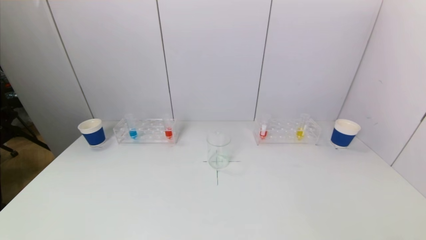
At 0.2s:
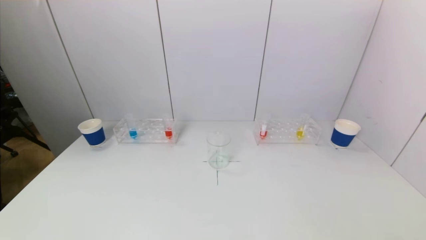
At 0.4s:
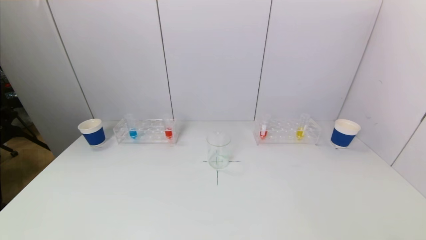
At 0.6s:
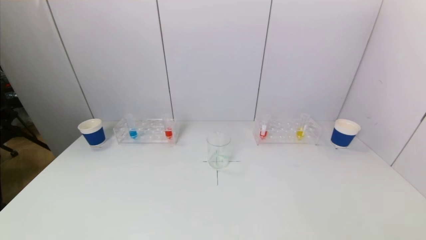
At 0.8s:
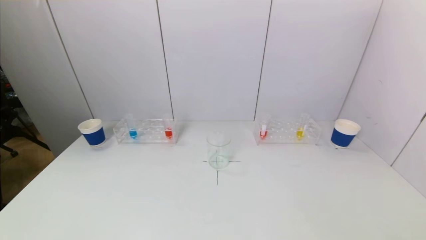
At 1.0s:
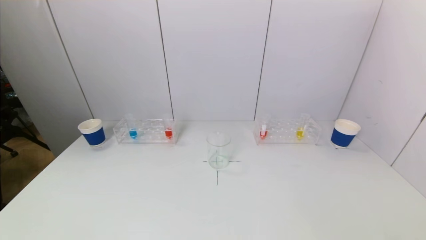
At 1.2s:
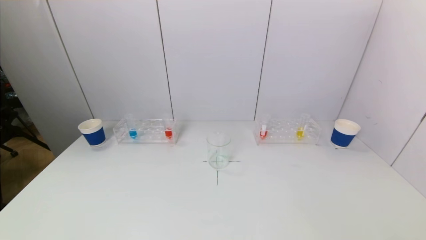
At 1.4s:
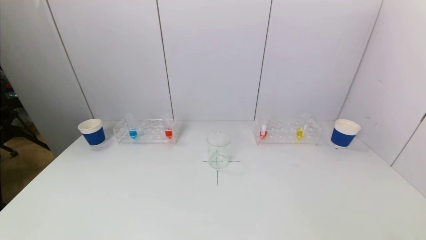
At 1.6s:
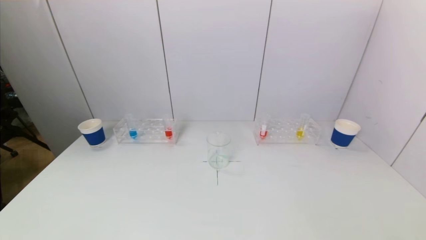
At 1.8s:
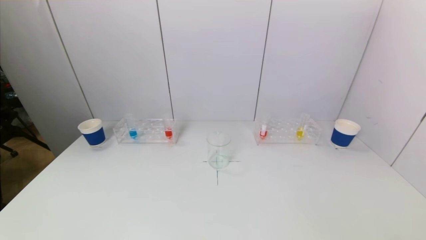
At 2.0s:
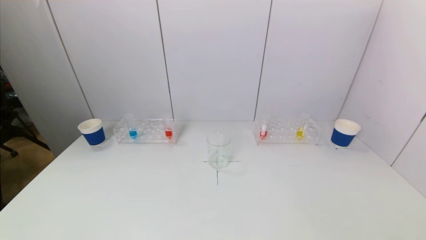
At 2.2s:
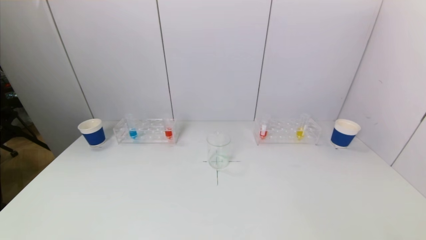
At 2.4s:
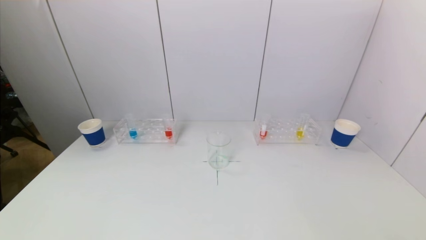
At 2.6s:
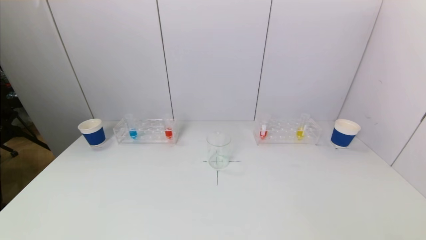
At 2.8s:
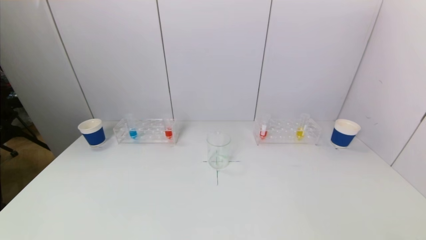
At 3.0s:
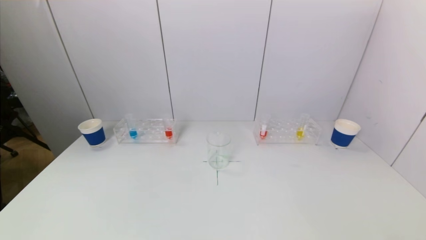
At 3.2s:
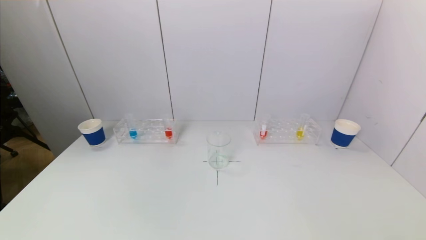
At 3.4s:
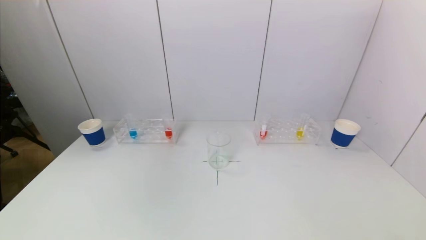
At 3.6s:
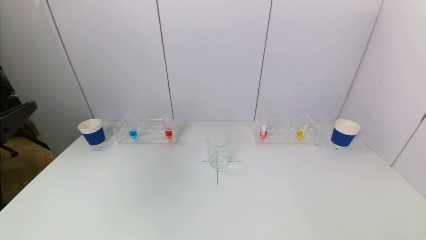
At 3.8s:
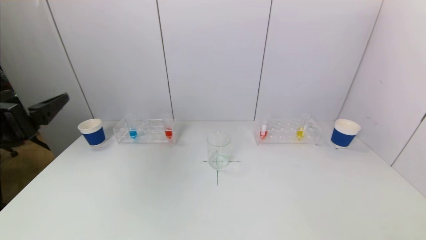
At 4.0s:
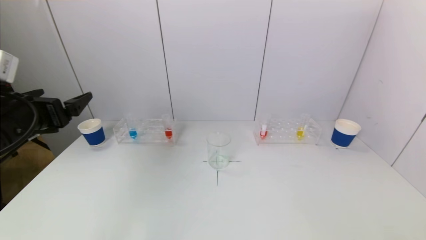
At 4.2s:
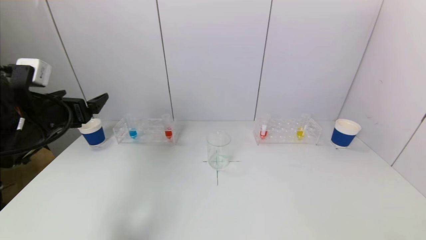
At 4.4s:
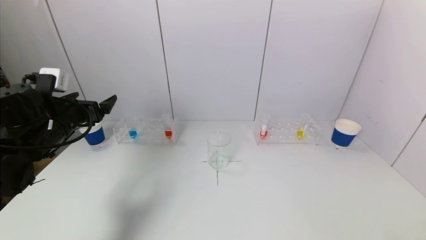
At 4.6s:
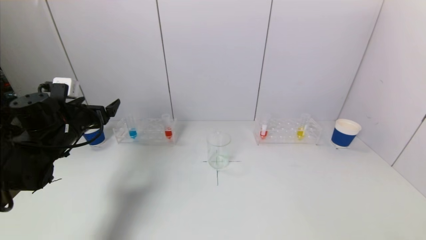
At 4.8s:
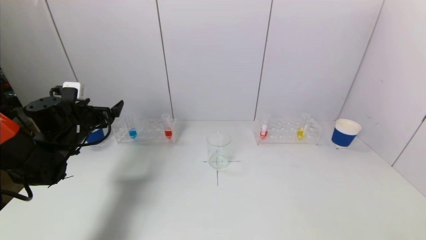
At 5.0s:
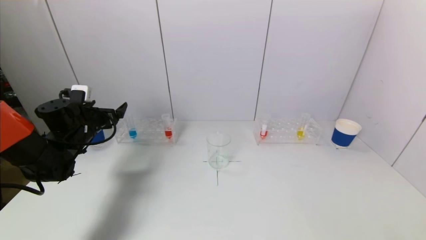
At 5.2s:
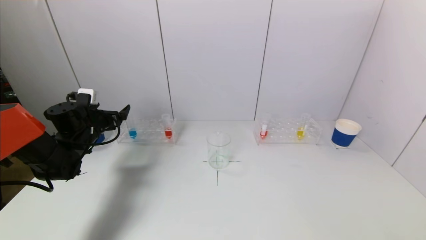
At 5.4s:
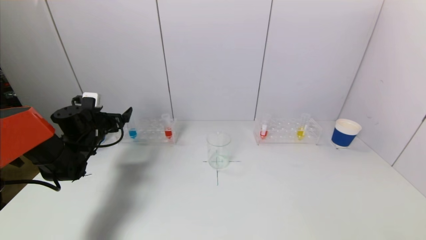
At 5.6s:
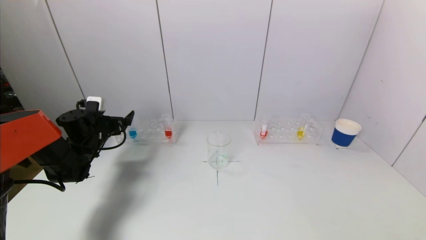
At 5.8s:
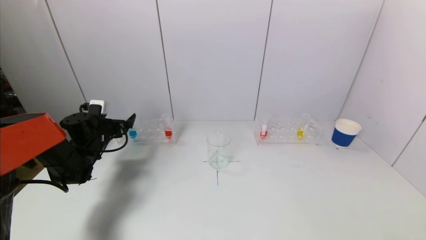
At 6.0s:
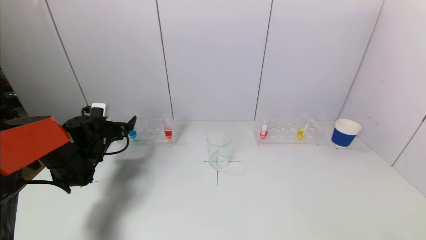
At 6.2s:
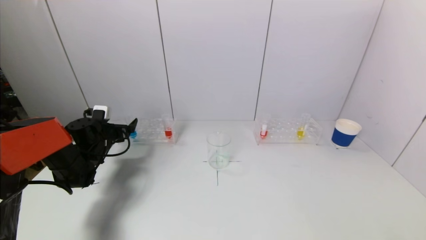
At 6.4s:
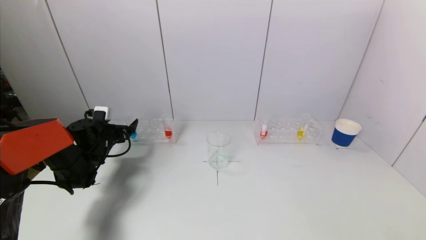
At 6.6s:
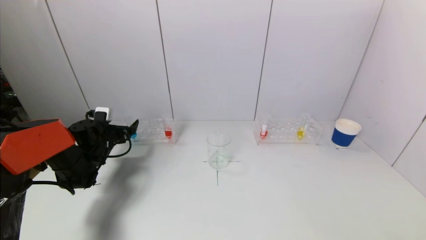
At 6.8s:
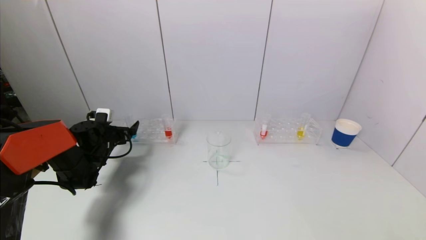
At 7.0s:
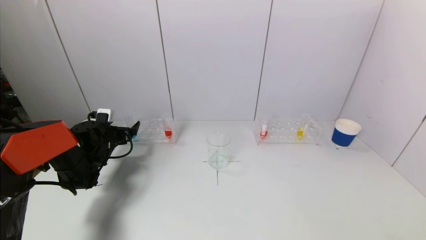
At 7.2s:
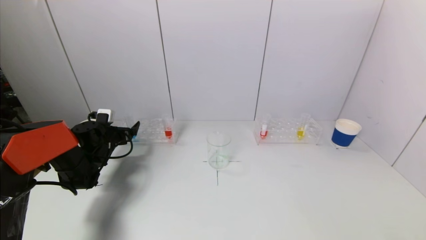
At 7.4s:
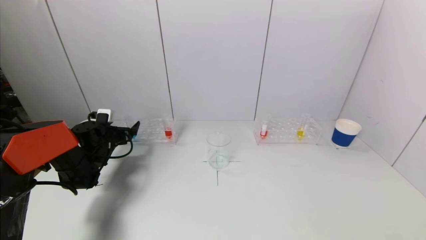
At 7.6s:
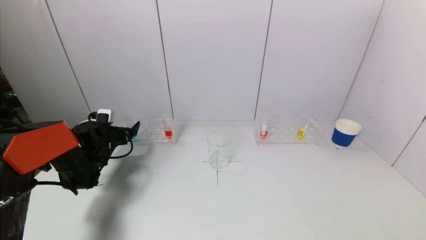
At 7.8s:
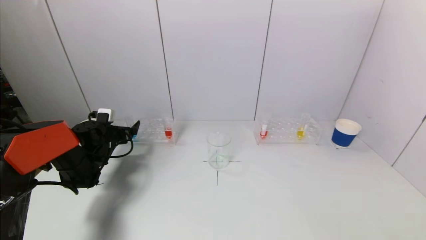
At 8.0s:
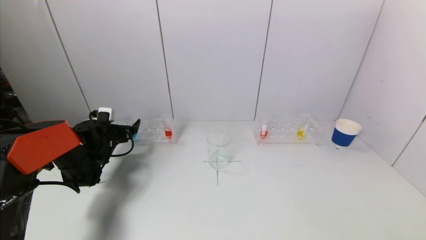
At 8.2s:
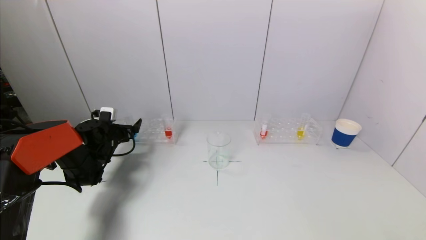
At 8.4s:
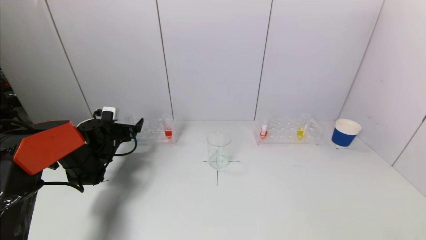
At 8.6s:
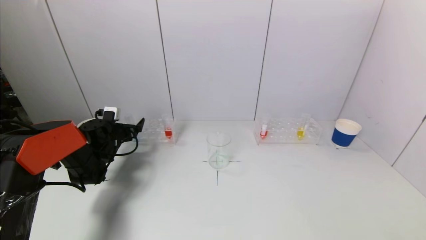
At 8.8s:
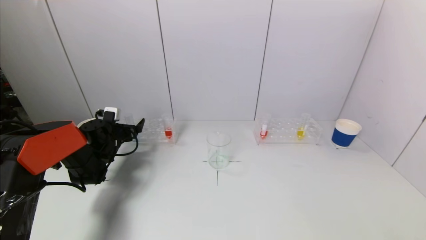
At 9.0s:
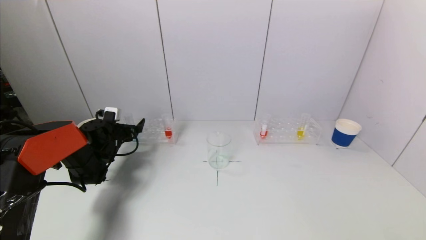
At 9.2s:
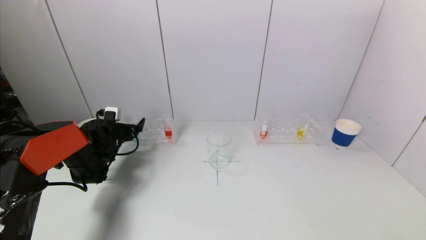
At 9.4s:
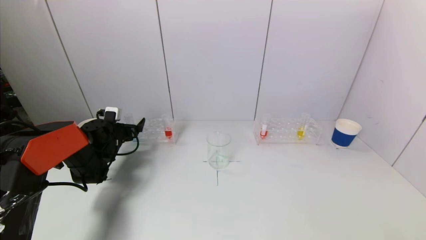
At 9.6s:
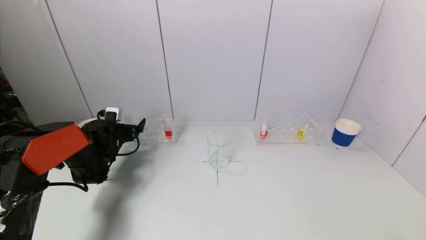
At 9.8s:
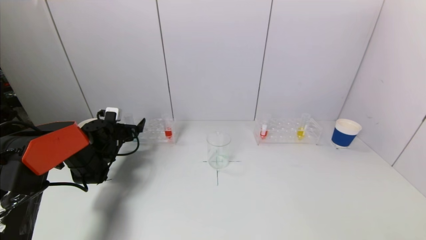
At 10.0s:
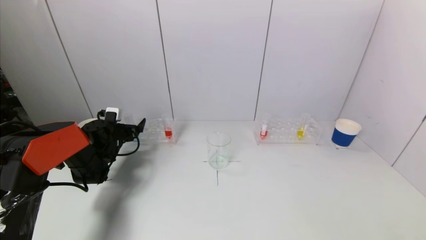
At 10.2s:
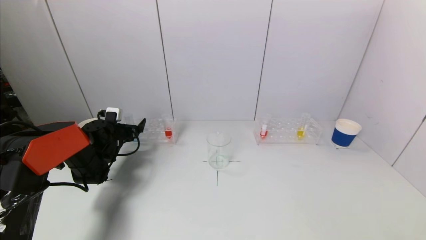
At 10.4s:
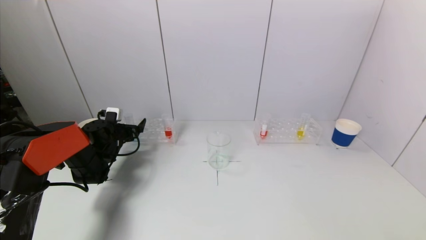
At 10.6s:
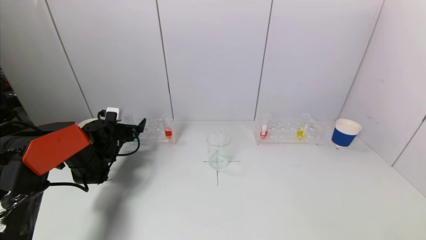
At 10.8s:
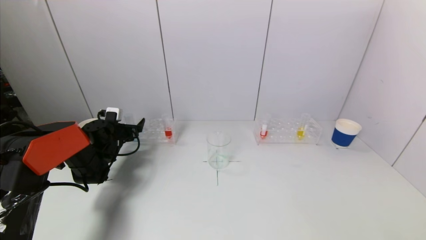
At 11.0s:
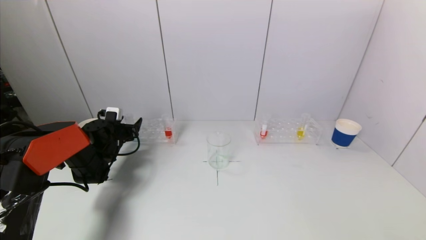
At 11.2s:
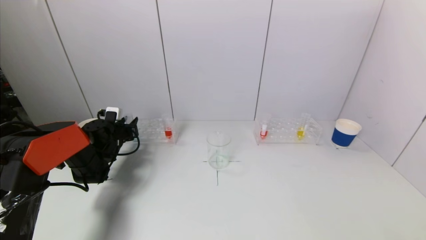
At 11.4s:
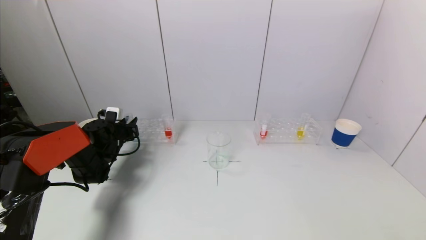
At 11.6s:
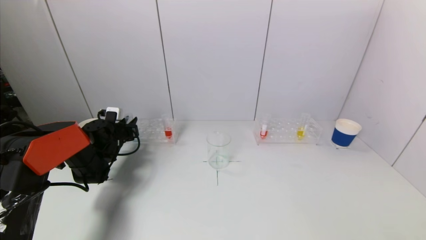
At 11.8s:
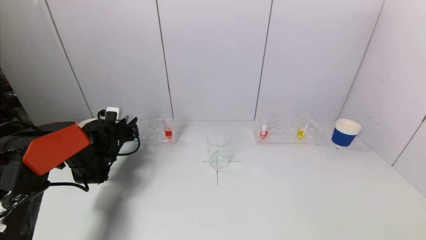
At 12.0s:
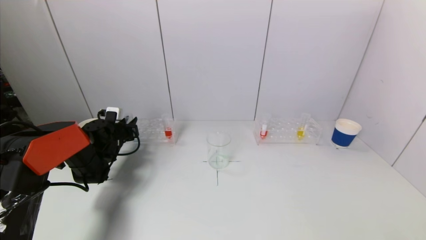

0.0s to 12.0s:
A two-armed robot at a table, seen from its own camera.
Task of the whole recording: pick up a test tube with pigment on left test tube rack and a test tube with pigment on right test tube rack by grippers and pour them into the beaker.
Step, 0.0s to 11.4s: Grasp the blue reagent with the left gripper.
0.0s to 1.6s: The two grippers keep their place.
3.0s to 4.4s: The left gripper travels forward by approximately 35 cm.
4.4s to 6.0s: The left gripper goes approximately 15 cm downward and forward.
6.0s to 9.0s: There are only small adjustments of the grippers.
9.0s to 10.4s: The two grippers keep their place.

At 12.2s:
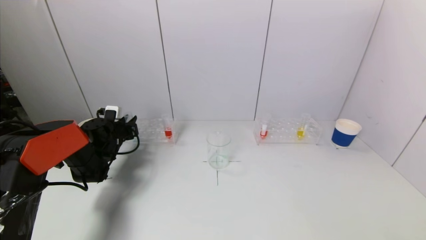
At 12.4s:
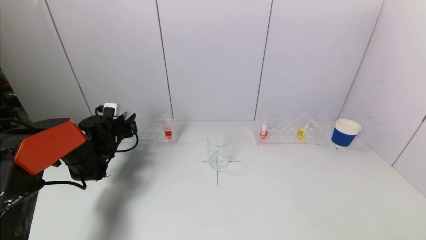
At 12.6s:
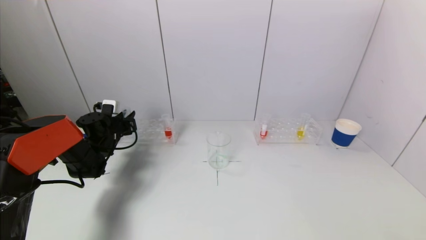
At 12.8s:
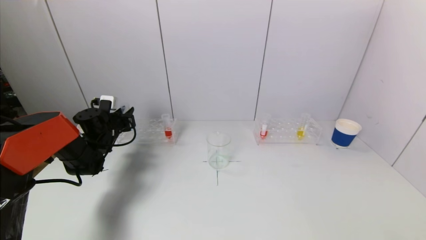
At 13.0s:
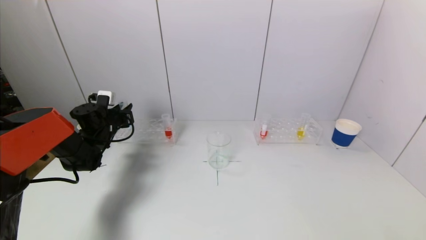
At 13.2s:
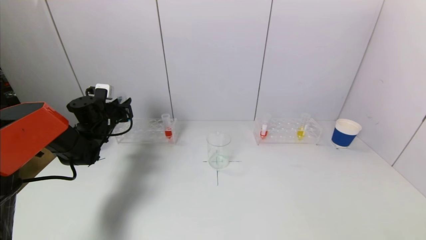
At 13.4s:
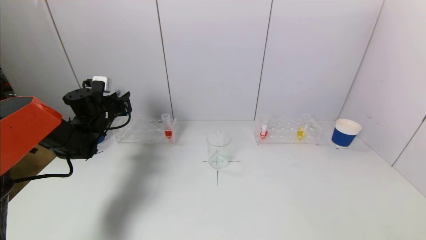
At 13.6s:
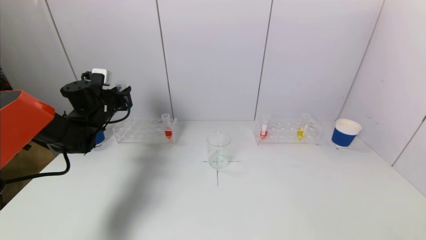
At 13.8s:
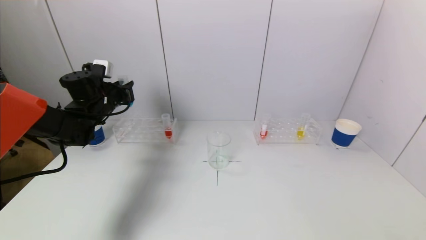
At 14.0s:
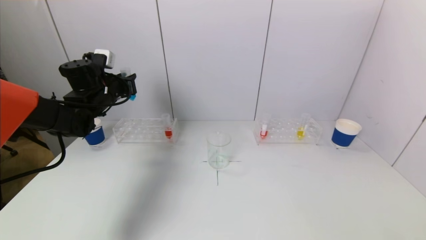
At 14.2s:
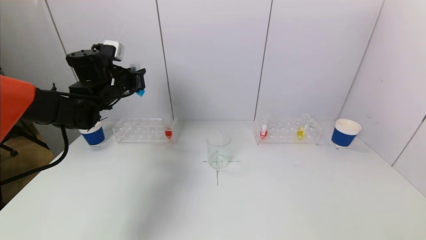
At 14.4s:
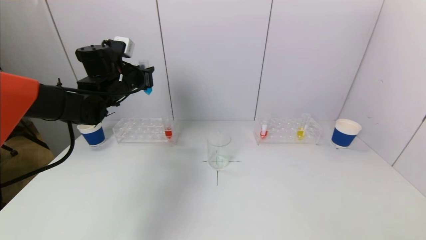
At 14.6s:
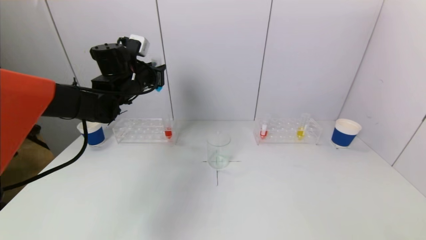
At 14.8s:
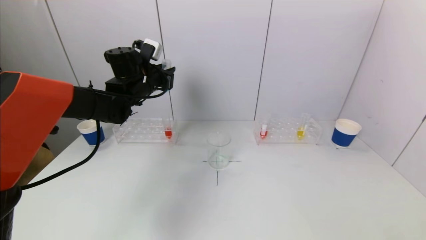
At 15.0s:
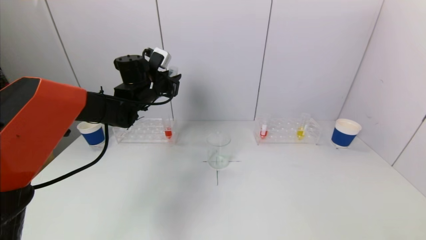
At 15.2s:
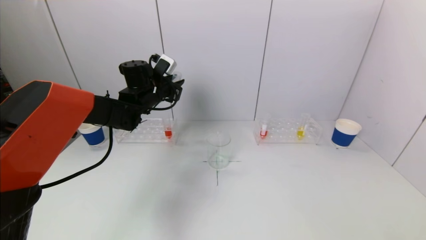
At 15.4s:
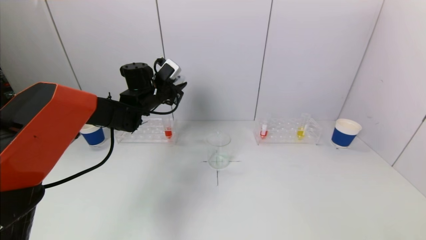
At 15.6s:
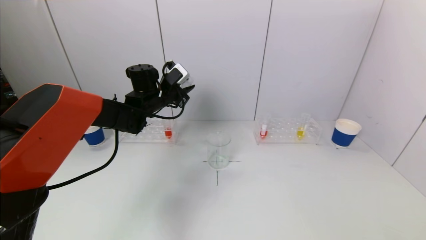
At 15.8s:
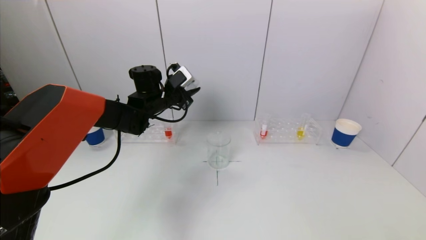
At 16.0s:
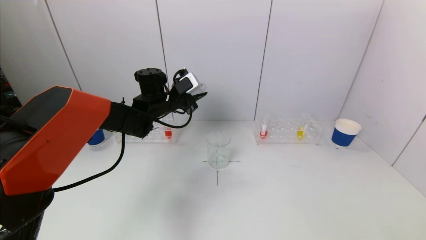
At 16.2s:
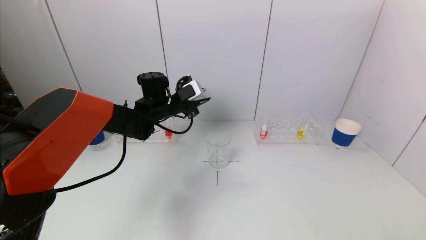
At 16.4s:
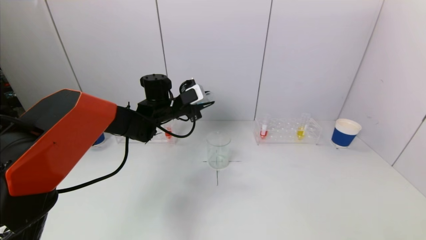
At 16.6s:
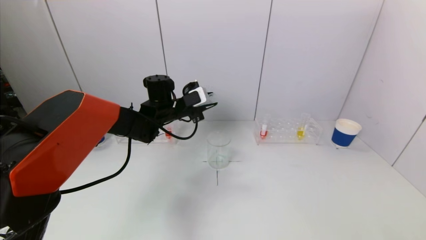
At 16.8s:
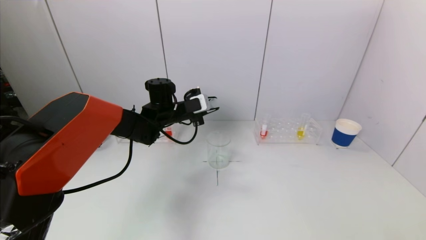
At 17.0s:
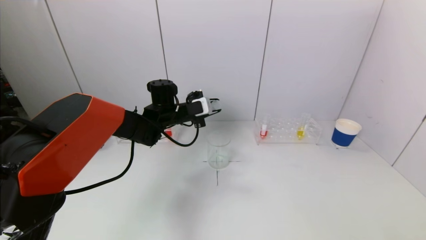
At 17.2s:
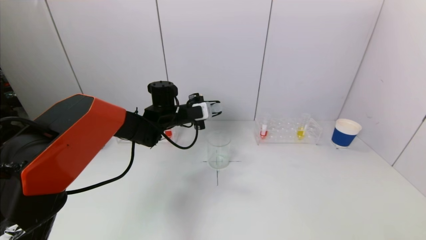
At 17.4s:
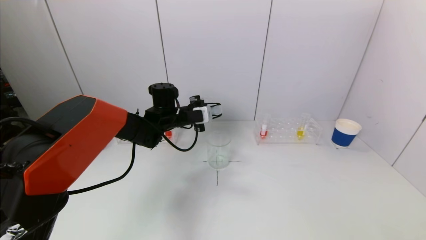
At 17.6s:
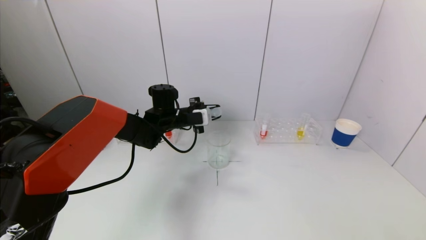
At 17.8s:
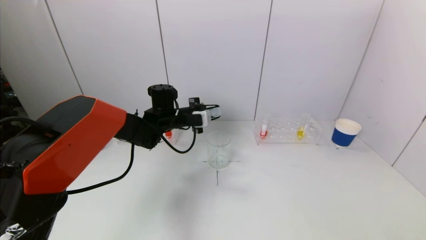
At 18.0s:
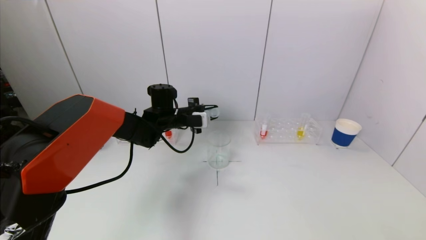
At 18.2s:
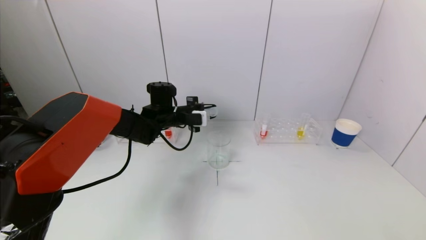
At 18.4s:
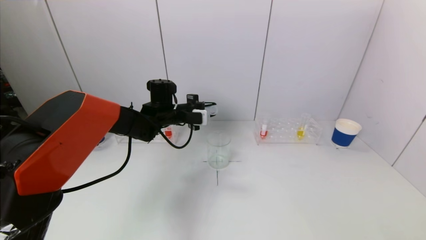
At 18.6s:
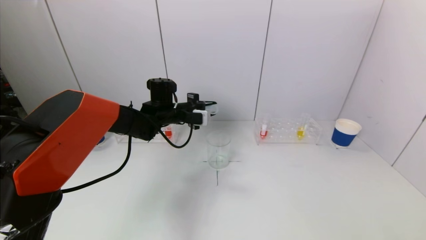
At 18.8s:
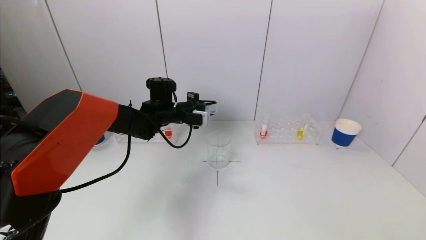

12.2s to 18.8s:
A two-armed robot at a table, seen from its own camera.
Task of the whole recording: pick up a test tube with pigment on left test tube rack and a test tube with pigment on right test tube rack by grippers and pour them into the beaker.
12.2s to 13.8s: The left gripper travels upward by roughly 15 cm.
13.8s to 15.4s: The left gripper shifts roughly 15 cm to the right.
15.4s to 17.2s: The left gripper travels to the right by roughly 5 cm.
17.2s to 18.8s: The grippers move only a little.
